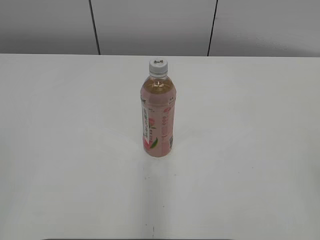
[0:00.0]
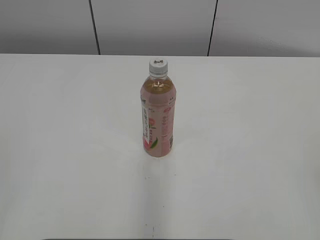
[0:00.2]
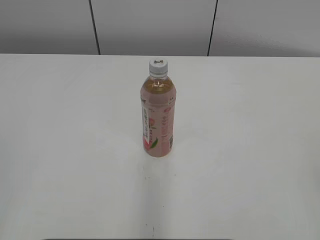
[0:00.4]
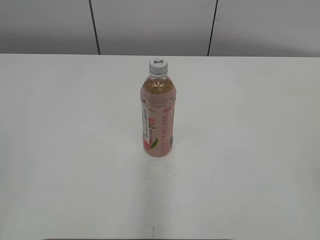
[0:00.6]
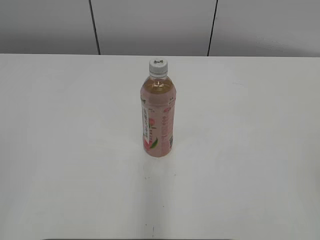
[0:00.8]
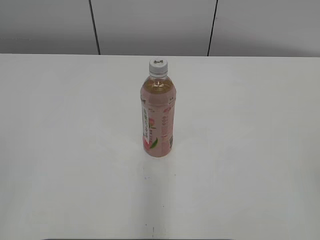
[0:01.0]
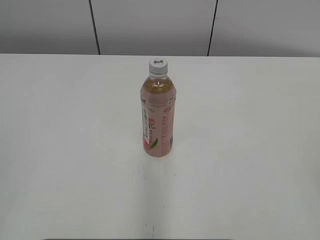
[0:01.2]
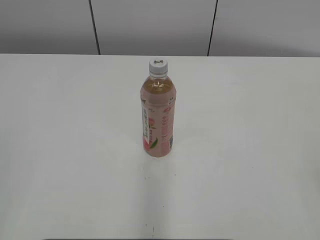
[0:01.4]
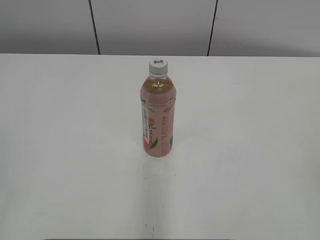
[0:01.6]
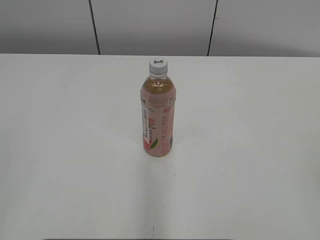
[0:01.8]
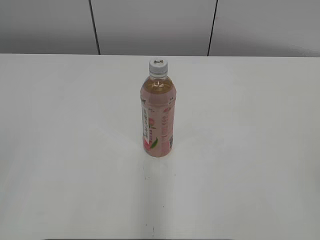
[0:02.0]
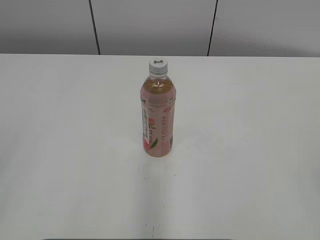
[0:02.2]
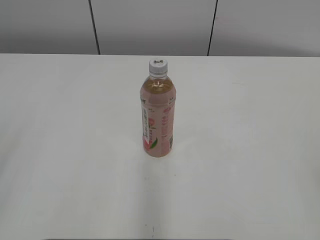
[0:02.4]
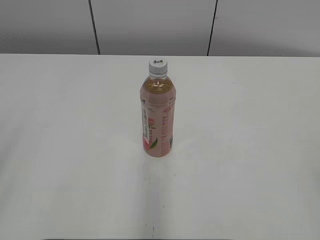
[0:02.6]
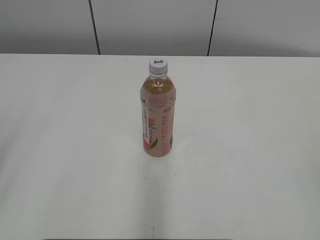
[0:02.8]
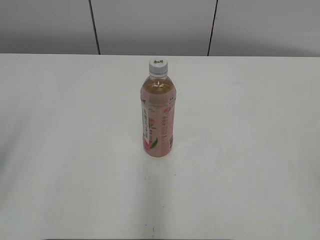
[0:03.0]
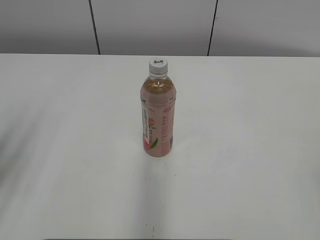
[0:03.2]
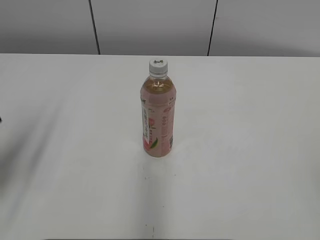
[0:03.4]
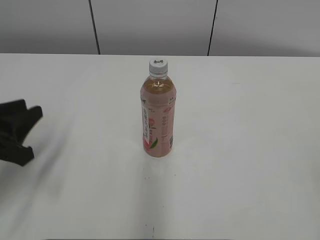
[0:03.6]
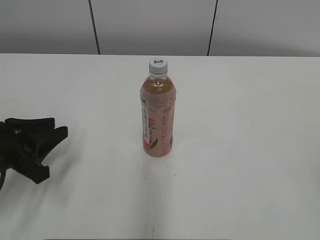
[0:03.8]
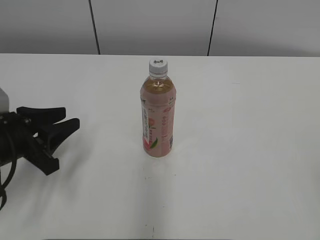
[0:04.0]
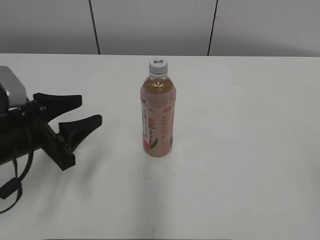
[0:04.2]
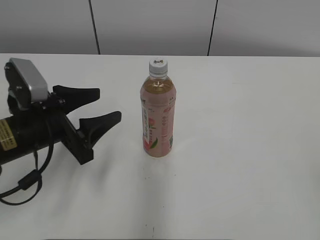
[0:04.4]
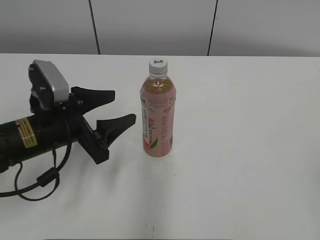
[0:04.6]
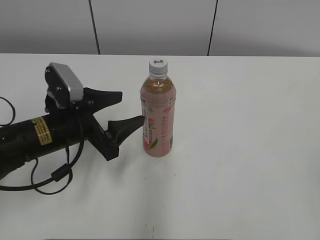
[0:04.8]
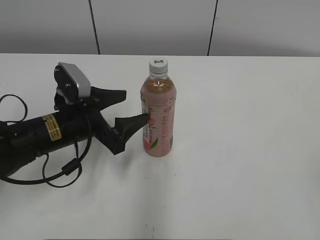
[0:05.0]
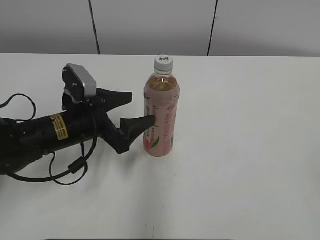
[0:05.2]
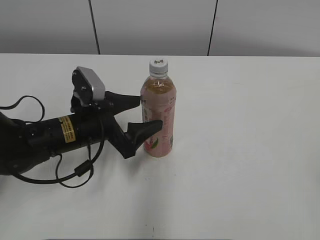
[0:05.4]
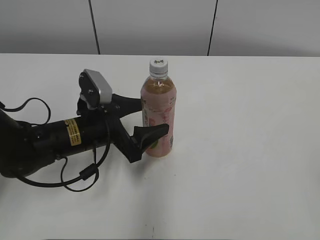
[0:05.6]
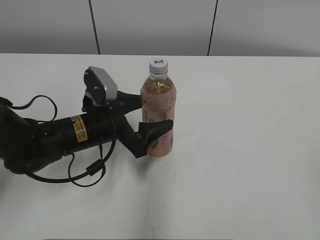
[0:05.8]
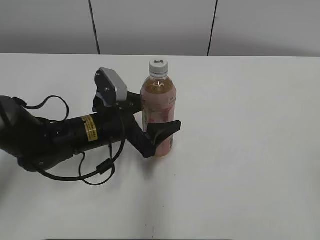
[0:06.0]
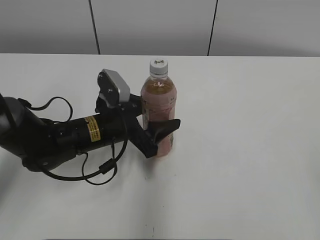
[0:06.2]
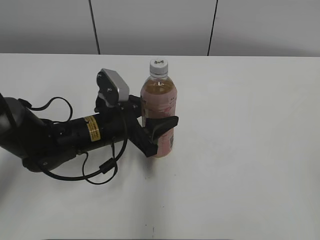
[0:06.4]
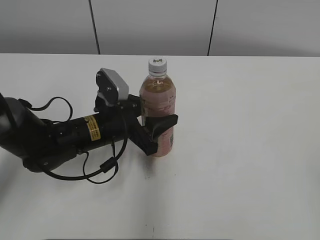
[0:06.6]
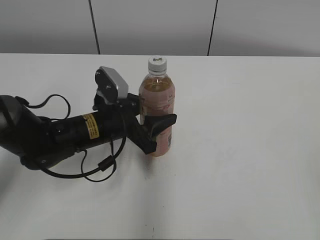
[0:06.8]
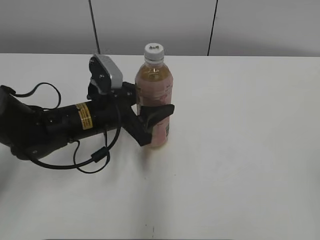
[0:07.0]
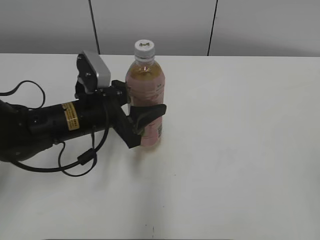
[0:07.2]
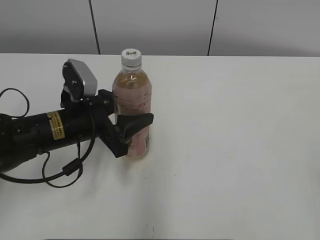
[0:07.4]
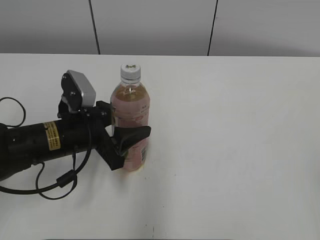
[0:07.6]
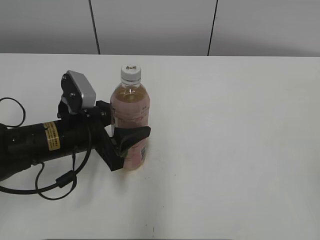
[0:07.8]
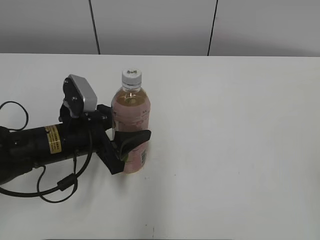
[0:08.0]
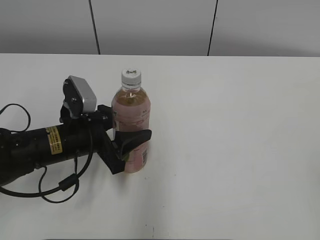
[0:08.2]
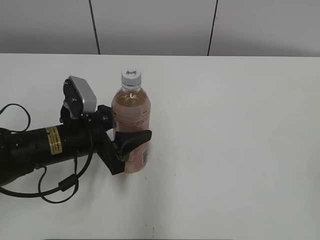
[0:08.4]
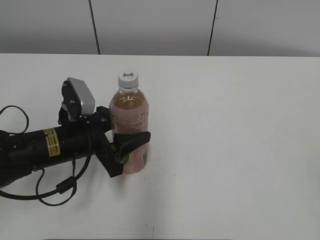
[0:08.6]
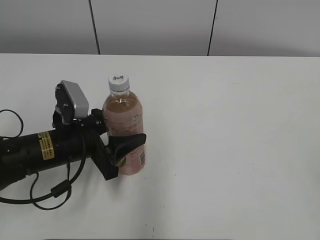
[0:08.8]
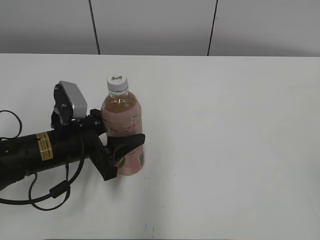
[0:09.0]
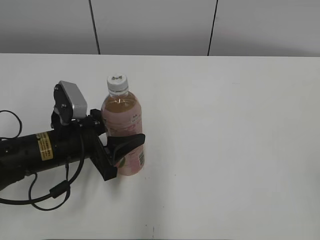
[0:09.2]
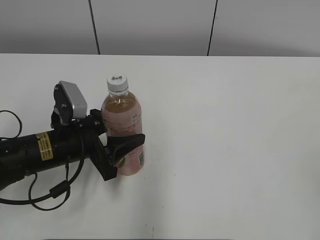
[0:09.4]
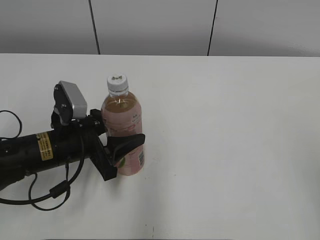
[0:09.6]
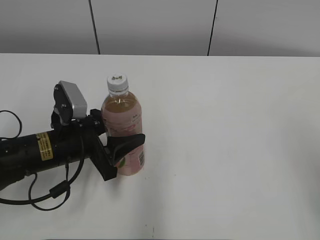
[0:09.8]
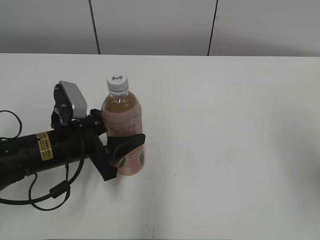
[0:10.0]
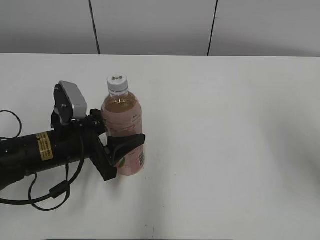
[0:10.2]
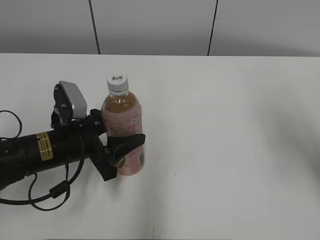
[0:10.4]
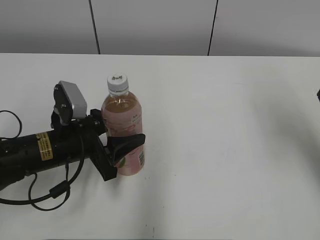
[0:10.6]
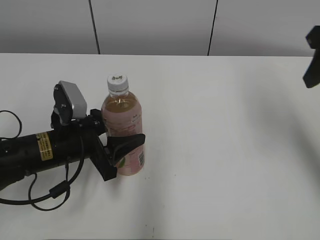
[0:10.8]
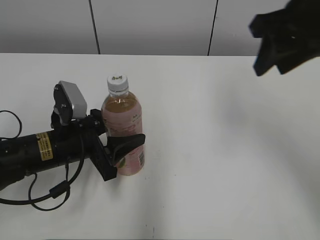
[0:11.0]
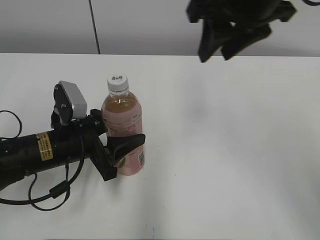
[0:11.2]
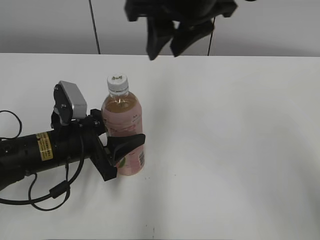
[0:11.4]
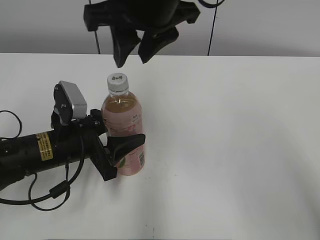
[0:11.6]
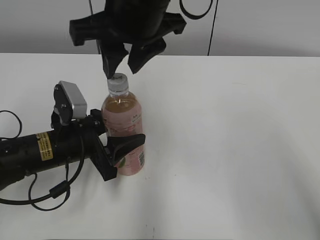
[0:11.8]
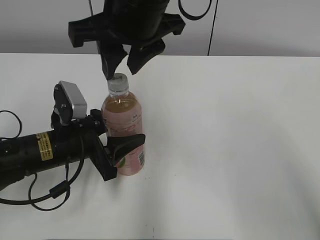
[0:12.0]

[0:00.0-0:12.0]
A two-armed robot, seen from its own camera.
Step, 0:00.0 to 0:06.2: Grab the Peach Oolong Tea with the left hand.
0:03.0 to 0:04.4: The left gripper travels forward, to the right and downward by about 20 cm, and opens up.
0:04.4 to 0:06.0: The left gripper shifts roughly 10 cm to the right and forward.
0:06.0 to 0:07.6: The left gripper shifts by roughly 5 cm, and closes up.
0:07.6 to 0:09.0: The grippers make only small movements.
0:09.0 to 0:10.4: The right gripper travels forward by about 25 cm.
0:10.4 to 0:12.0: The right gripper shifts some 30 cm to the left.

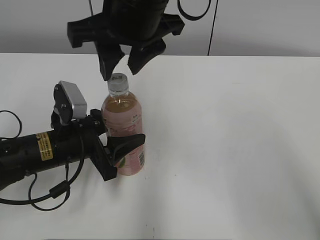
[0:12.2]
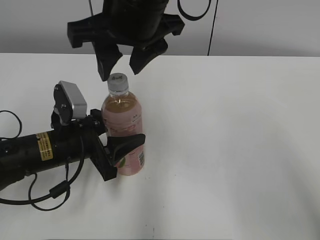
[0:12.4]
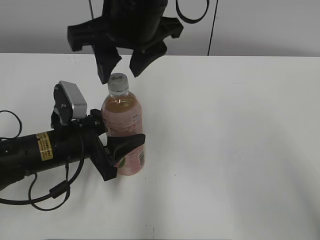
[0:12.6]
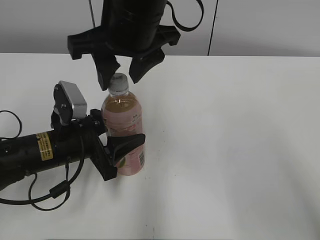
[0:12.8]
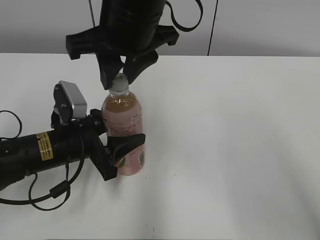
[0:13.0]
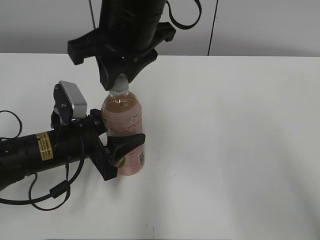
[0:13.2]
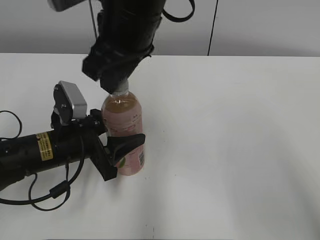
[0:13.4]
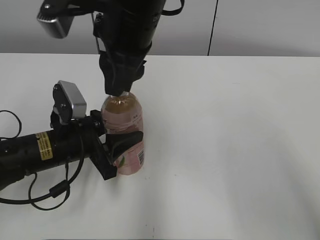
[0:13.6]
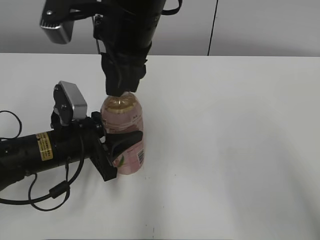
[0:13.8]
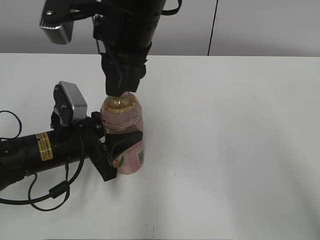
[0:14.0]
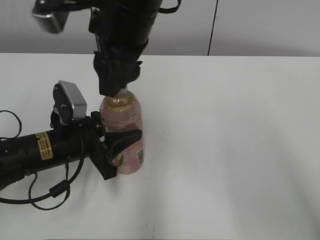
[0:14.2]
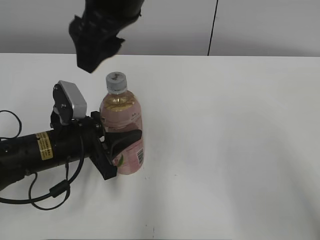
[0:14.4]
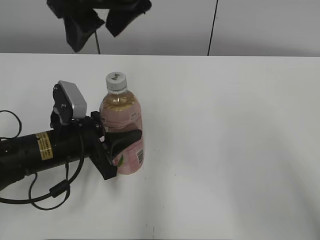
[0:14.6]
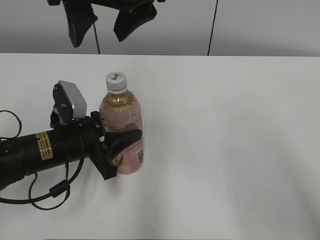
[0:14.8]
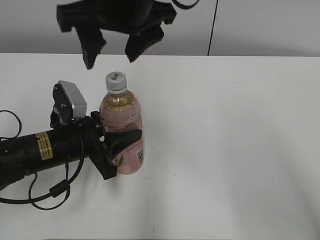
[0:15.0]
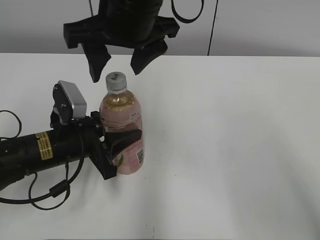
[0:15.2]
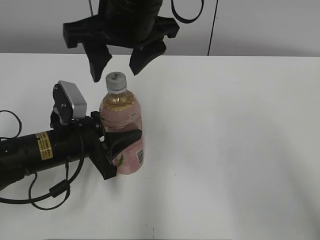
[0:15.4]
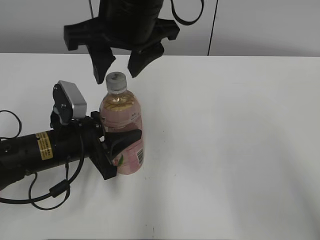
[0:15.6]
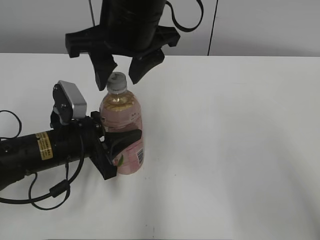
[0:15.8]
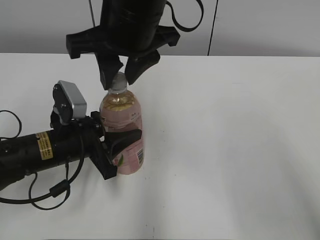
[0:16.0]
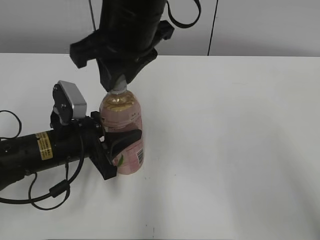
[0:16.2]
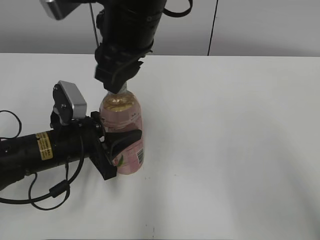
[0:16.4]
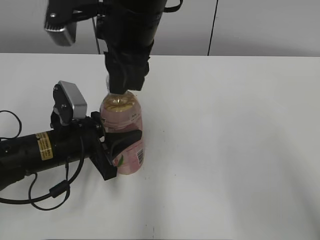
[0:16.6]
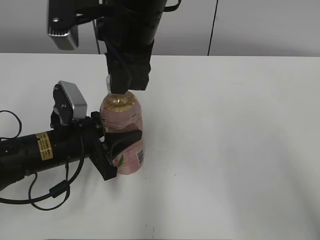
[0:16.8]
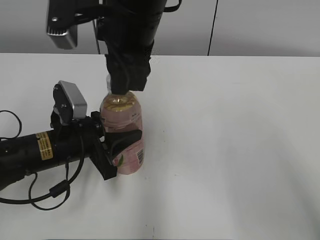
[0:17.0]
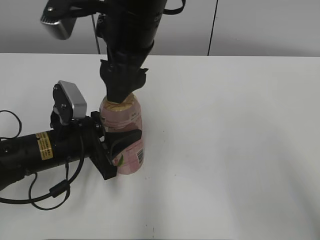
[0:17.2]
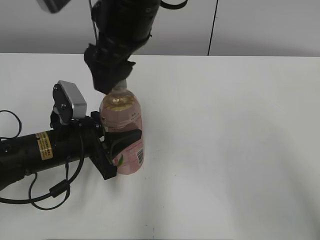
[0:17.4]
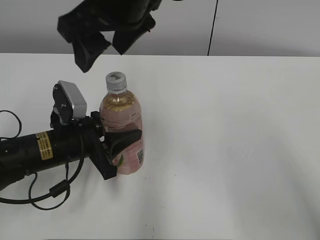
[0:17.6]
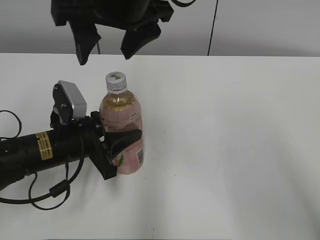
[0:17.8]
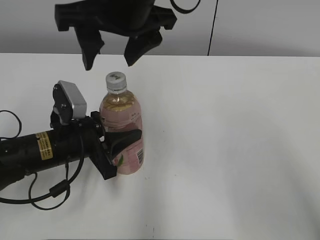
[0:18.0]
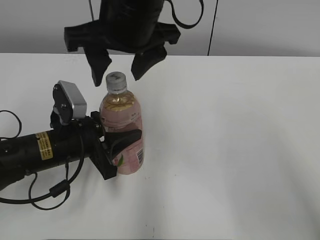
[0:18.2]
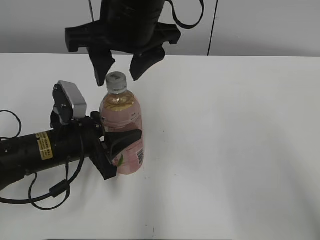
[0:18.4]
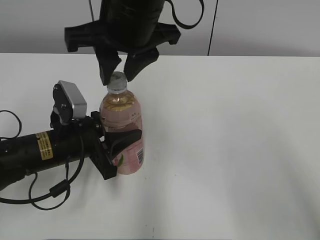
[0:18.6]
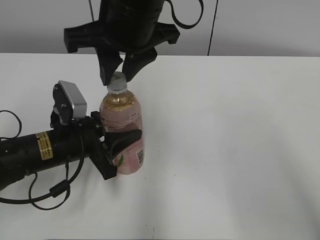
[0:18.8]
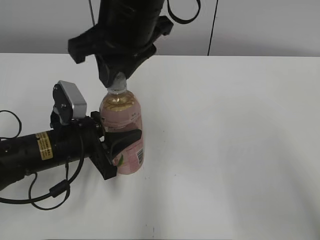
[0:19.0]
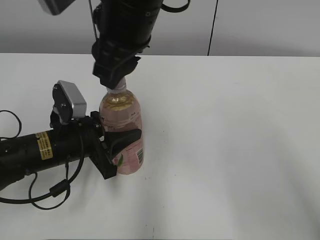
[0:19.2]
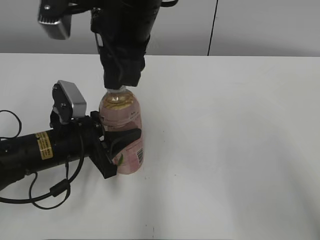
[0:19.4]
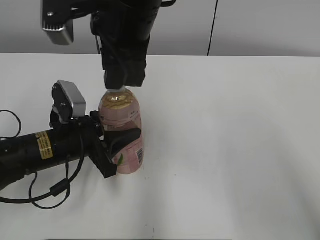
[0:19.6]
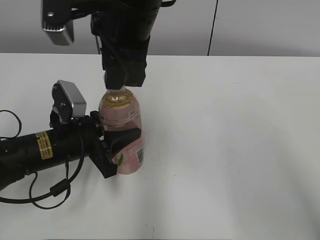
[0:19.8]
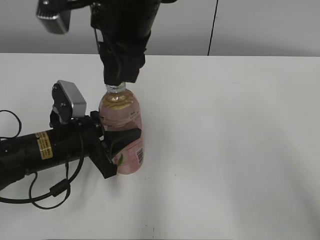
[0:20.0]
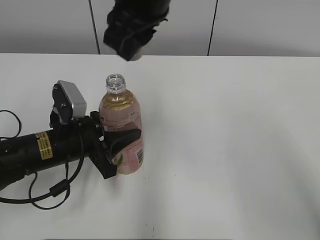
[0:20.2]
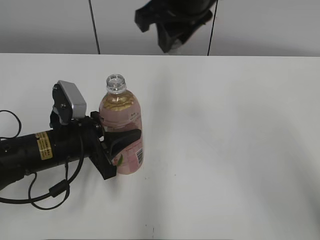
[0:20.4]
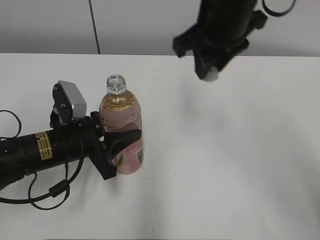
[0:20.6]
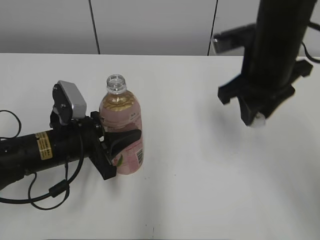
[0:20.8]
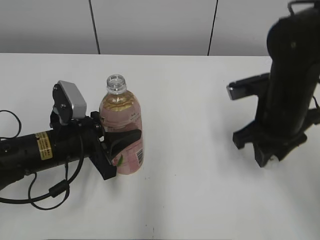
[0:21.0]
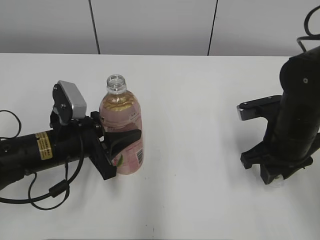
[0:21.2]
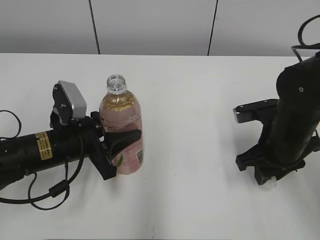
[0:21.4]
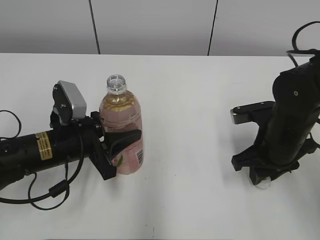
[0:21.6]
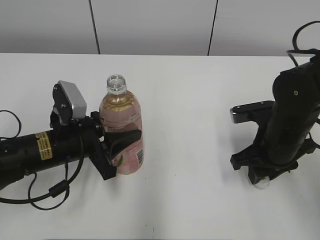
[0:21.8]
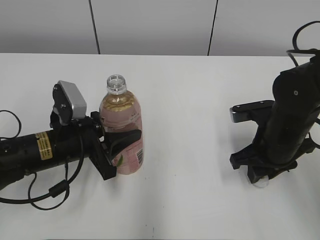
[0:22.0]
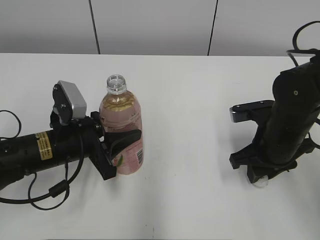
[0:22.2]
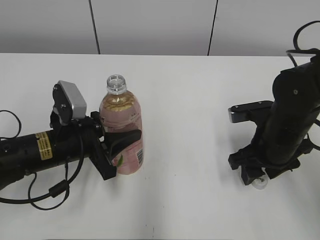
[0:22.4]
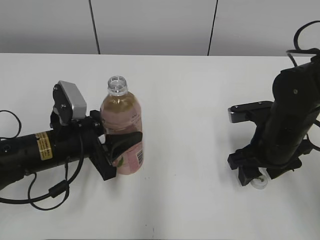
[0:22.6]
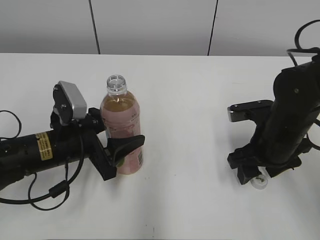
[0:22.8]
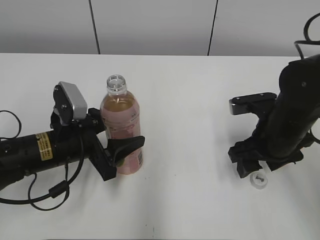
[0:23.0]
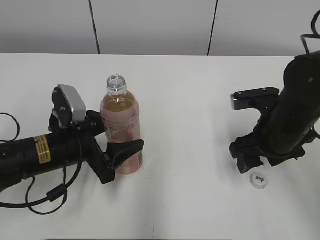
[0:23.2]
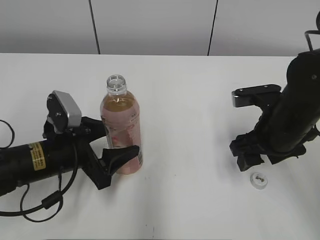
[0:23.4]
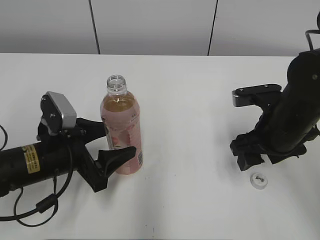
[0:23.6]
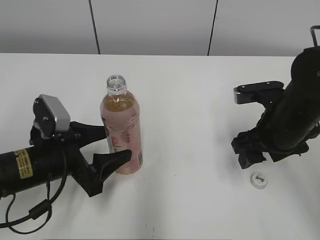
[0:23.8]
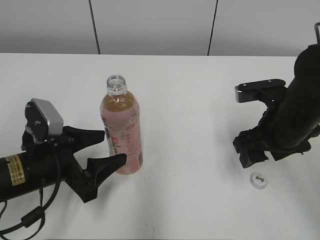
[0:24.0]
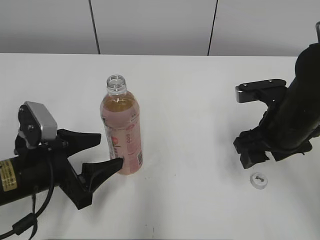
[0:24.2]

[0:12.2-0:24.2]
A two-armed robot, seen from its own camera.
Step, 0:20.2 to 0:22.2: Place the bottle cap on the right.
0:13.8 to 0:15.2: The right gripper opens.
0:15.2 to 0:16.6: The right gripper closes its fingers.
0:16.6 to 0:18.2: The right gripper opens up.
0:18.2 to 0:19.8: The right gripper closes up.
0:19.8 to 0:21.2: The right gripper goes about 30 cm to the right and downward.
0:21.2 to 0:22.6: The right gripper opens up.
0:22.6 to 0:24.2: The left gripper is displaced backward by some 5 cm, and opens.
